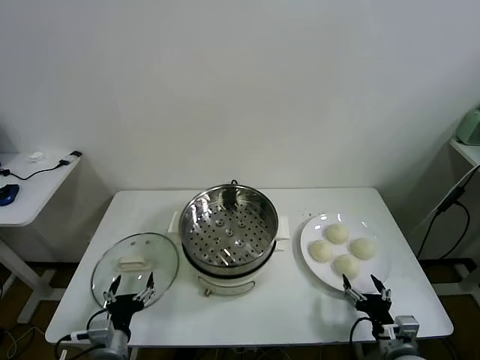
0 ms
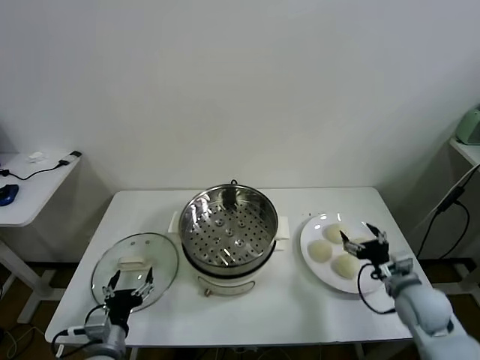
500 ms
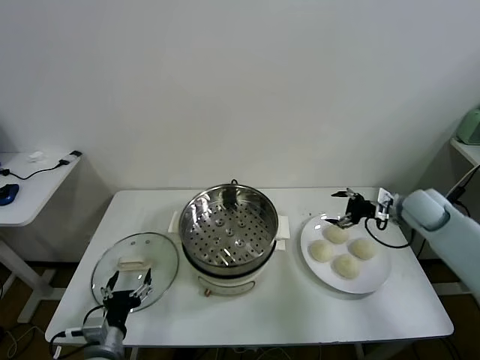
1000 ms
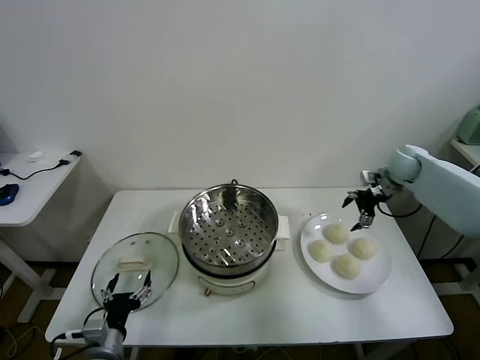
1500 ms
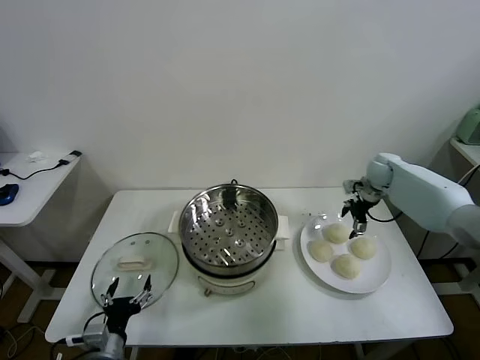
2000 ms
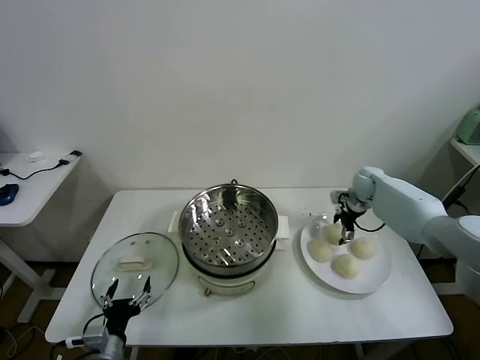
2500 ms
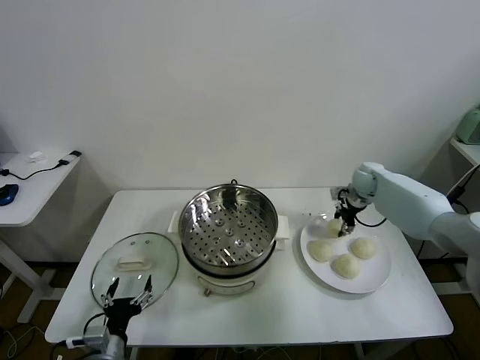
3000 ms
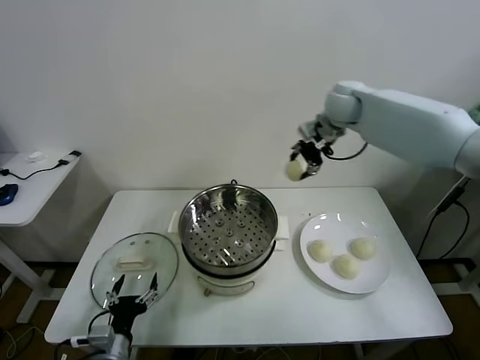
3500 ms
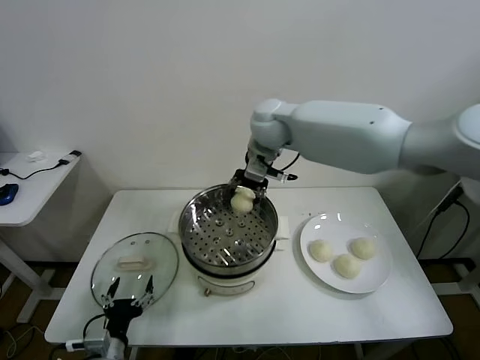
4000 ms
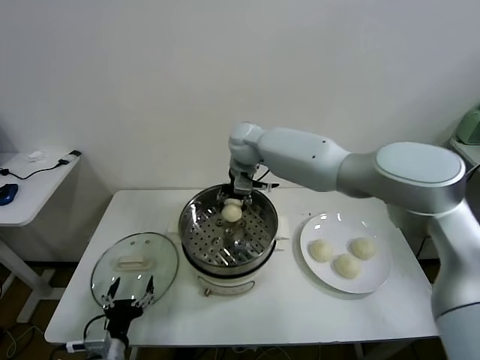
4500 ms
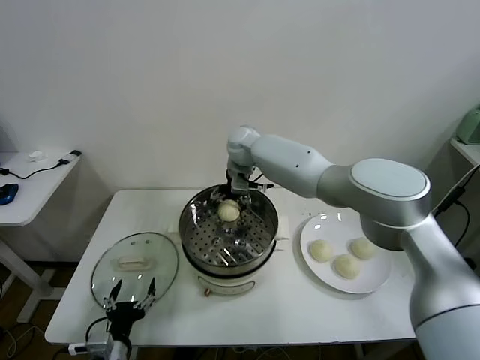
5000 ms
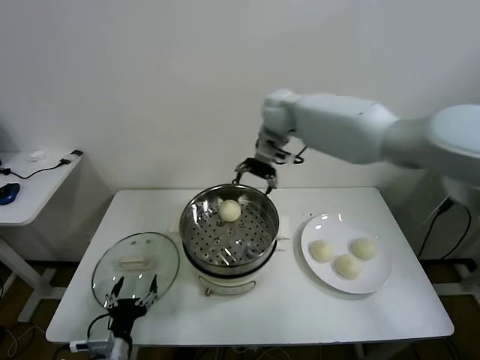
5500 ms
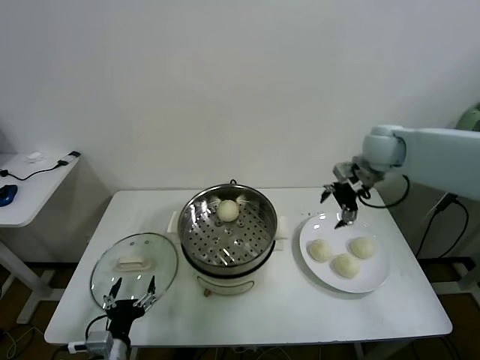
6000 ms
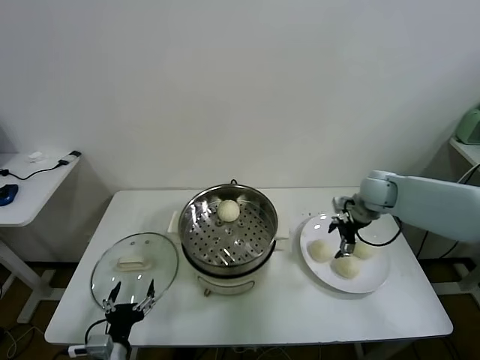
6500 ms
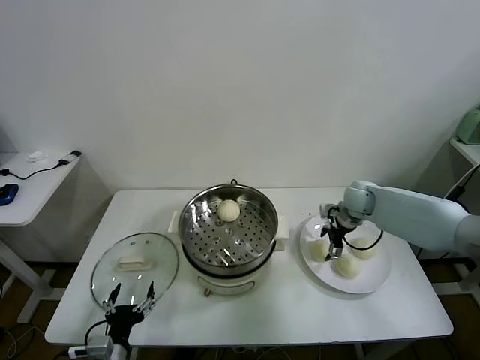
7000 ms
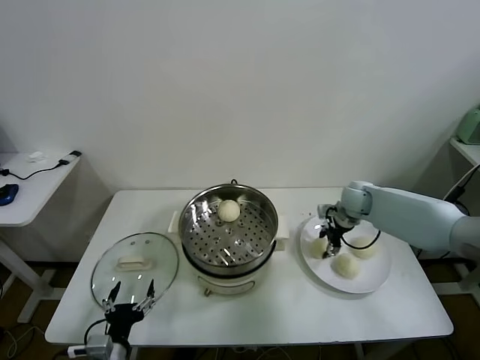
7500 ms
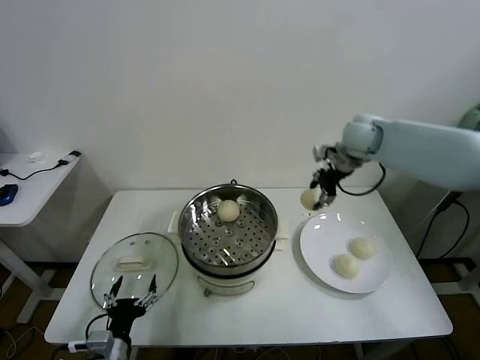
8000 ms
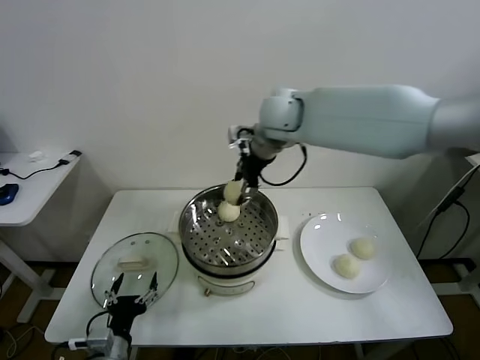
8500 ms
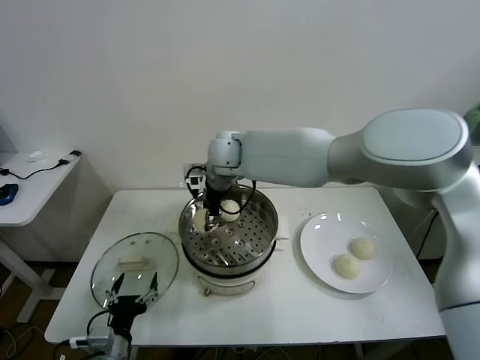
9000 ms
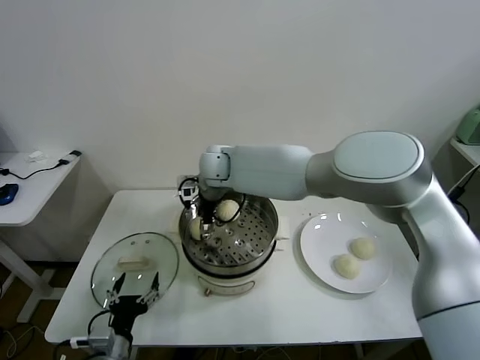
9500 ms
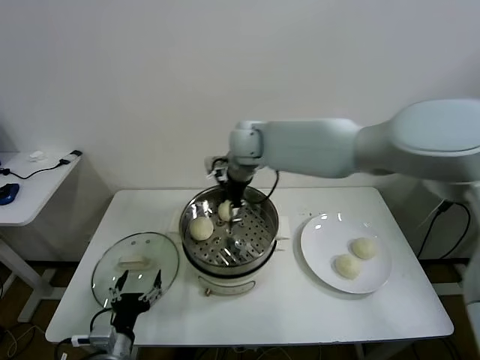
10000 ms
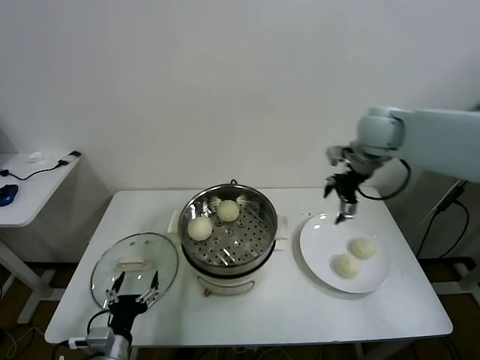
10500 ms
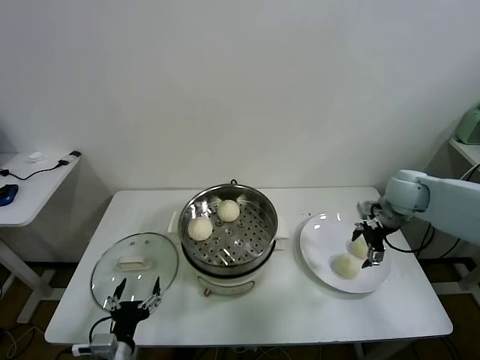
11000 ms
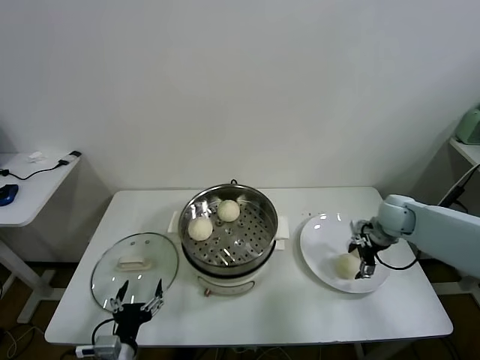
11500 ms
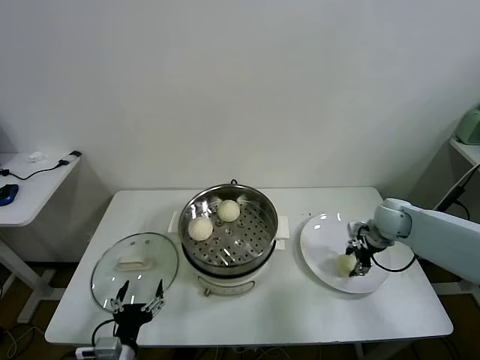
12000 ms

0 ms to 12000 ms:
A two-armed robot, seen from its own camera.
Task of the whole recording: take steamed baozi put them in steamer.
Step, 0 ms to 2500 ms: Grasp the baozi in the plate with right gripper.
Step, 3000 ms to 5000 ms: Place the baozi on the steamer with right gripper.
Step, 5500 ms to 7000 ms: Grasp the baozi in the plate with right gripper.
Step, 7500 ms to 9500 ms: Place the baozi on the steamer with right gripper.
Step, 10000 ms to 11500 ms: Grasp the baozi in the plate with right gripper.
2000 ms to 4000 ms: The right gripper shifts about 40 cm to the left and upward, and closes.
4000 ms to 6000 ms: The right gripper shifts about 30 cm to the right, and opens up.
6000 ms to 8000 ms: The right gripper goes about 10 cm to the left, goes downward and returns, about 15 cm each way, and closes its fingers.
8000 ms to 10000 ms: The right gripper goes about 20 cm to the left, and opens up.
10000 ms to 12000 ms: The right gripper goes some 40 cm to the right and downward, and closes up.

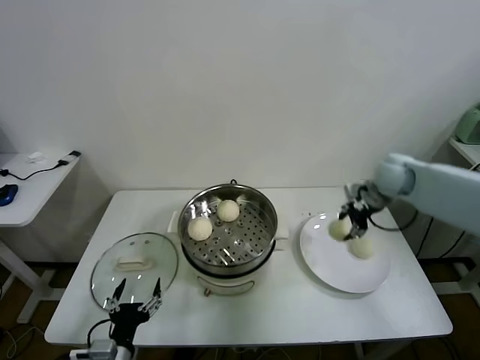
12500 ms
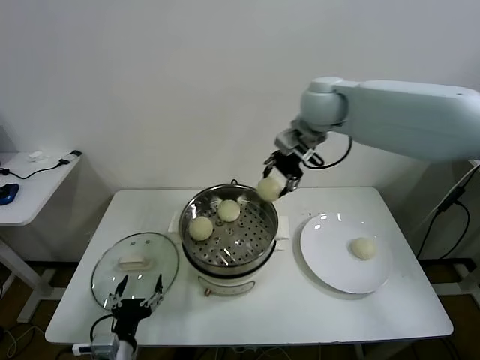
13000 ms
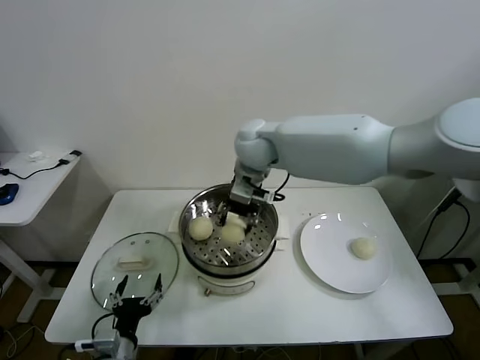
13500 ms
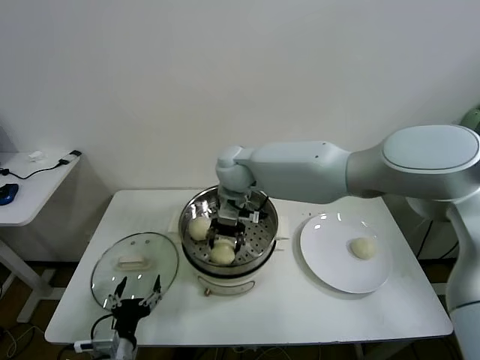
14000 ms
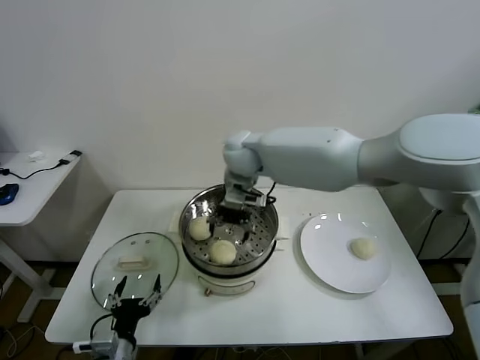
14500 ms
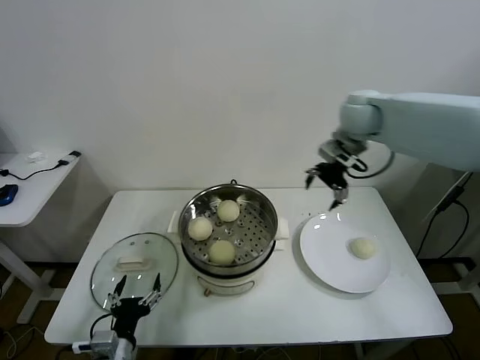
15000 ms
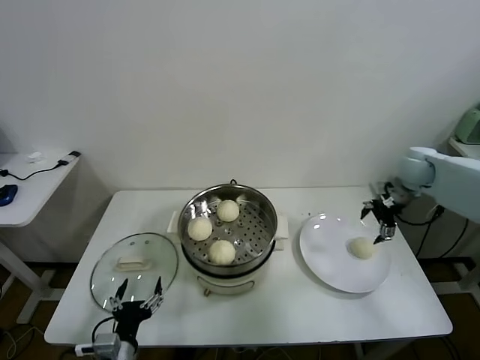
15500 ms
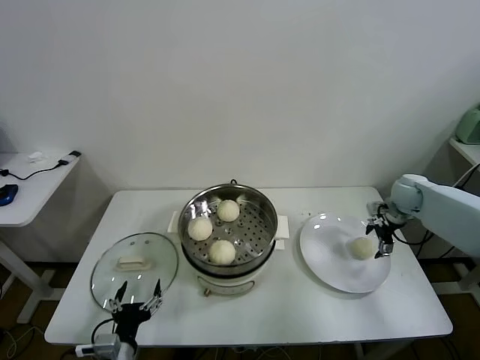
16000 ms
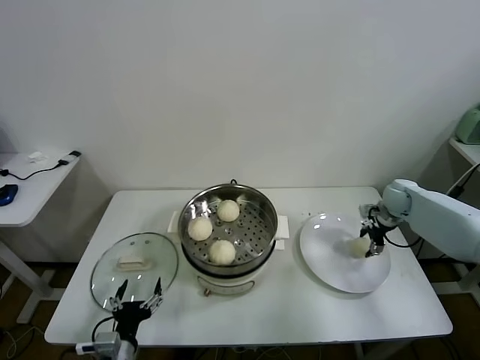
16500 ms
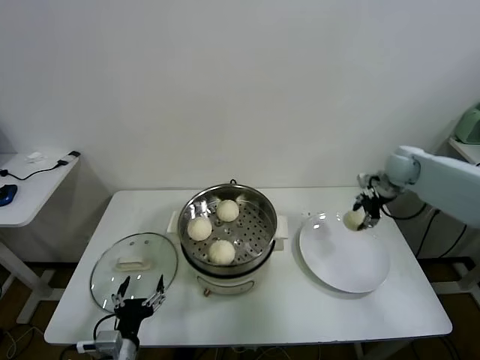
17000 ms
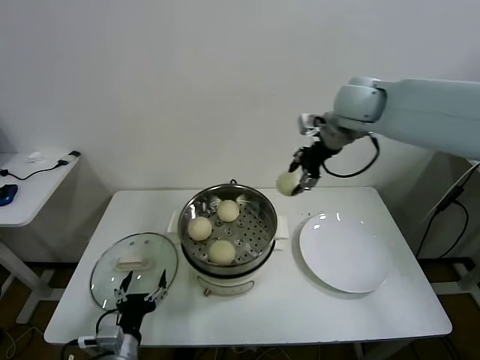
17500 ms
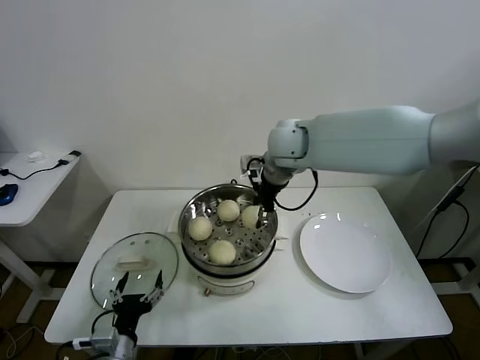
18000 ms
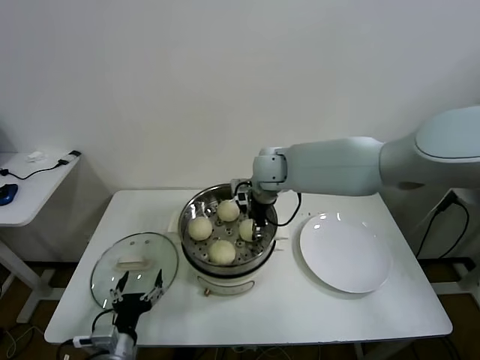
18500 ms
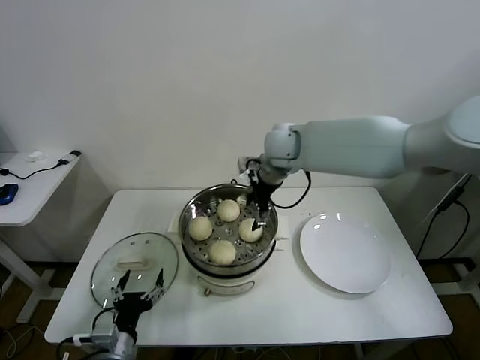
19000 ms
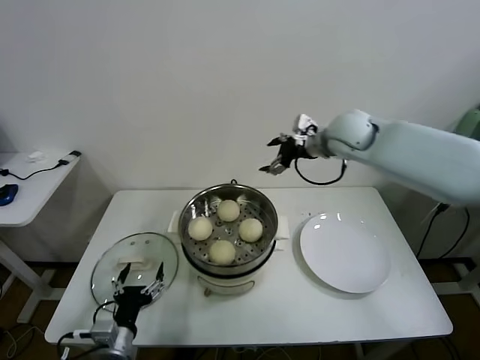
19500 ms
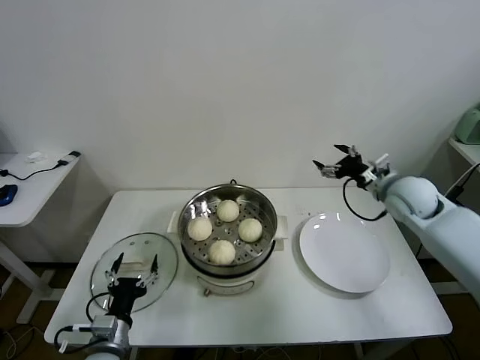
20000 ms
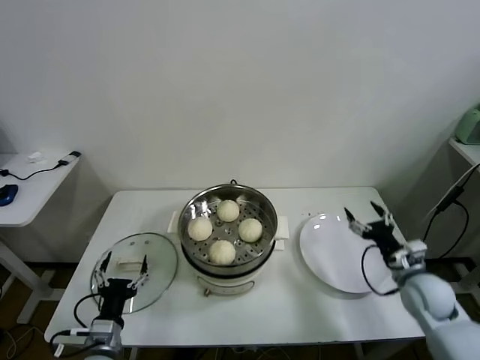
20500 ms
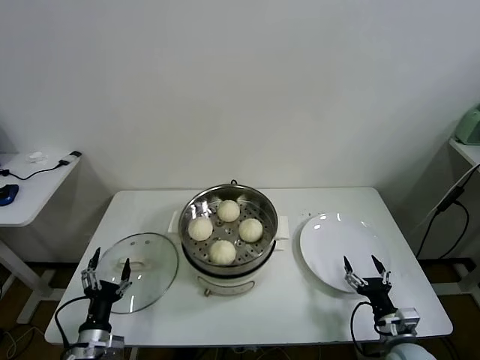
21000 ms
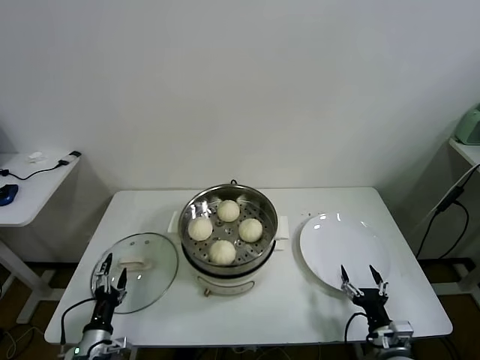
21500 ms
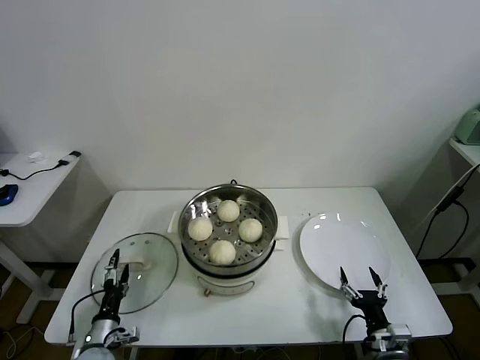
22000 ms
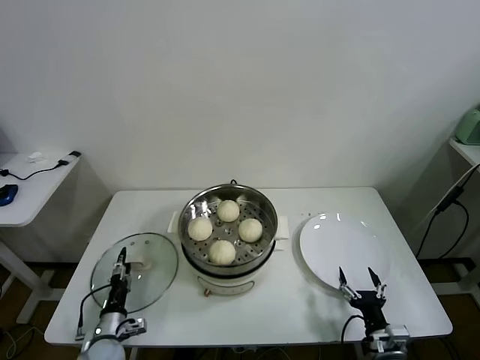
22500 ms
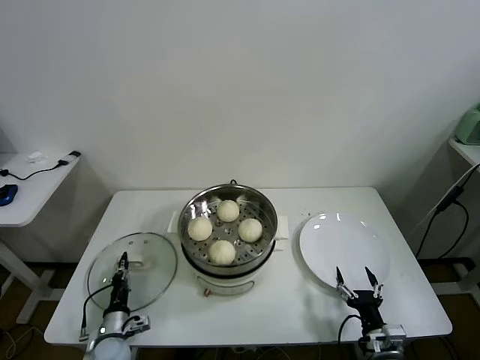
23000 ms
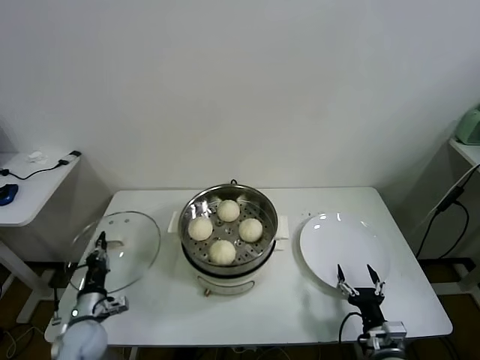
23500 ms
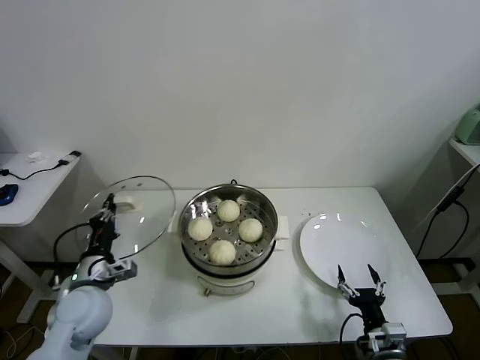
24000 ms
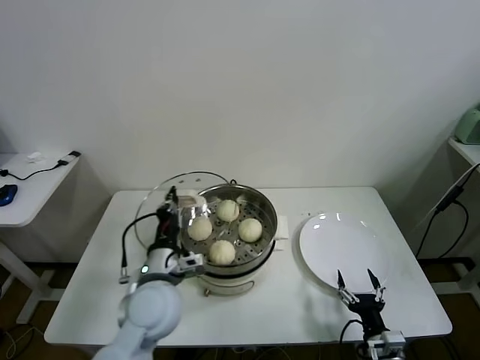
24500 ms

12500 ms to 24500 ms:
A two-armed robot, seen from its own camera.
Task of the whole recording: take steamed baozi put them in steamer.
Step, 12500 ms to 14000 ms: Place the baozi on the steamer with right gripper.
Step, 14500 ms to 16500 ms: Grasp the baozi in the plate with right gripper.
Step, 17000 ms to 18500 ms: Place the baozi on the steamer with right gripper.
Step, 19000 ms to 22500 ms: Grasp the pot lid with left gripper.
12500 ms to 14500 ms: The right gripper moves to the left, roughly 35 cm, and opens its fingers.
14500 ms to 16500 ms: The right gripper heads to the right and downward, covering approximately 50 cm, and closes its fingers.
16500 ms to 18500 ms: The right gripper shifts roughly 35 cm to the left.
18500 ms to 20500 ms: The right gripper goes about 40 cm to the right, backward and downward, and opens its fingers.
20500 ms to 22500 ms: The right gripper moves backward, downward and to the left, some 20 cm. The left gripper is displaced downward and forward by approximately 15 cm.
22500 ms to 24500 ms: The left gripper heads upward and to the right, covering about 30 cm, and closes up.

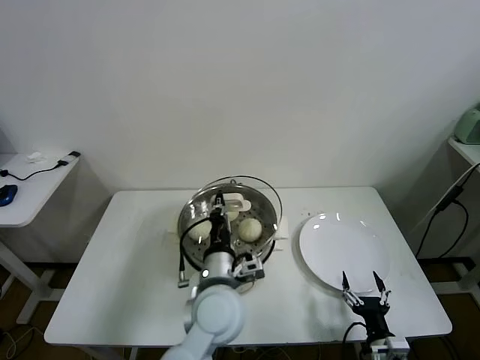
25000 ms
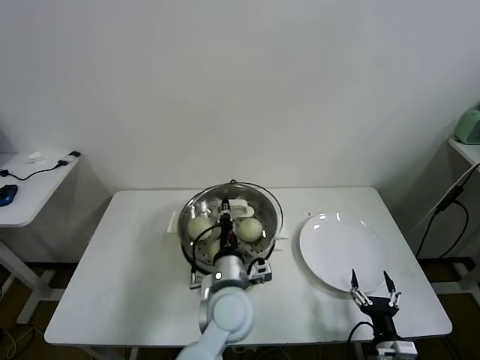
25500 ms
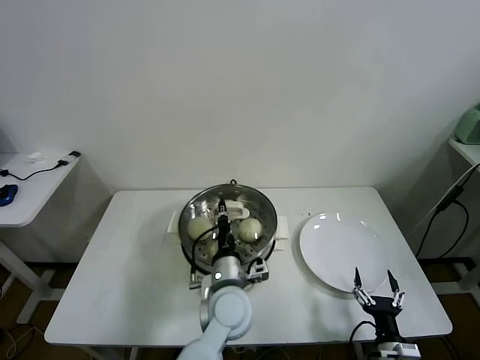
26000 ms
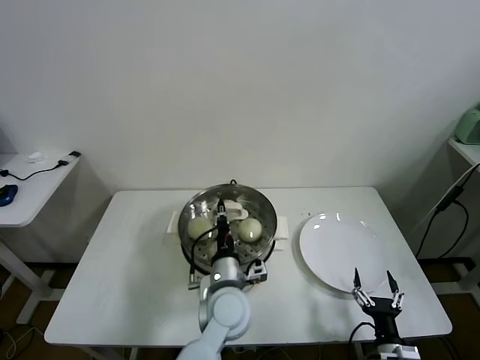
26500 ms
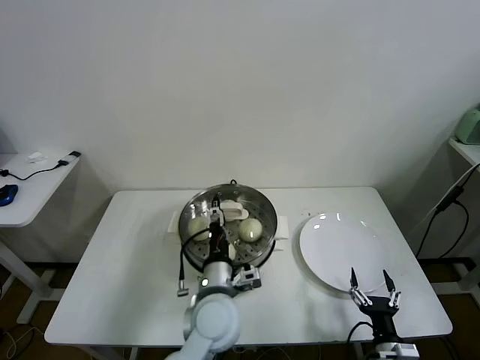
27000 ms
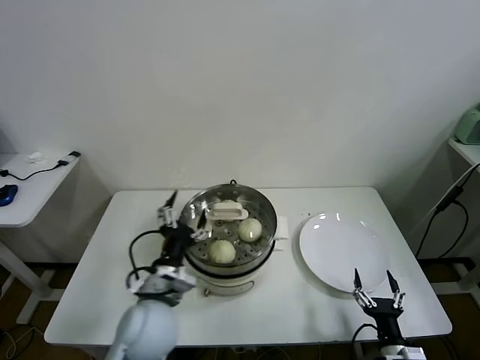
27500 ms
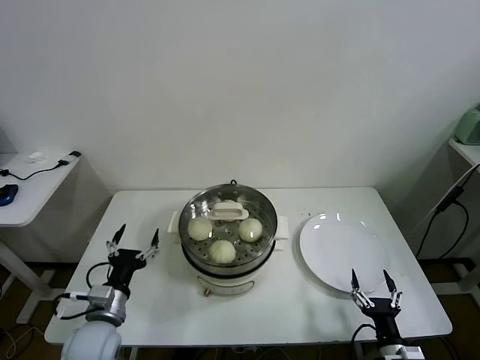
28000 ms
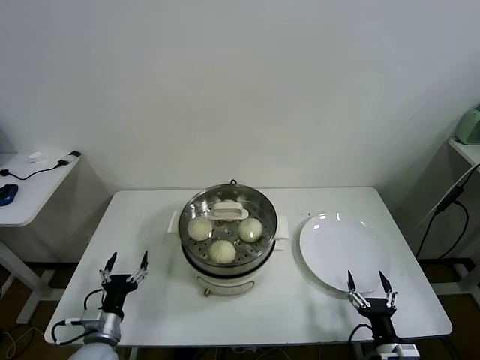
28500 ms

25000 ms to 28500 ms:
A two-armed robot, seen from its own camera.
Task of the whole recording: take steamed baozi put them in steamer.
25000 ms to 27000 ms: The left gripper opens up.
27000 ms to 28500 ms: The left gripper goes about 30 cm to the left and downward, and opens up.
